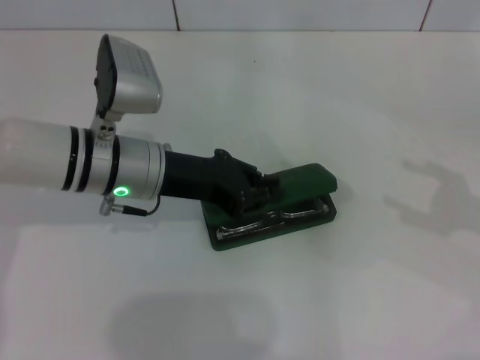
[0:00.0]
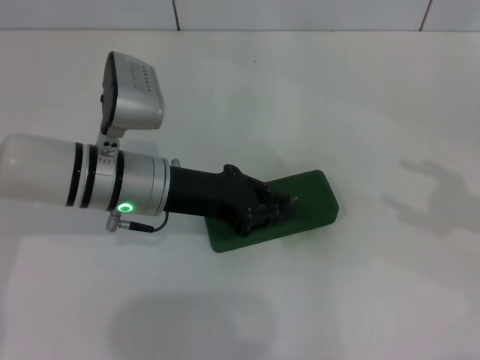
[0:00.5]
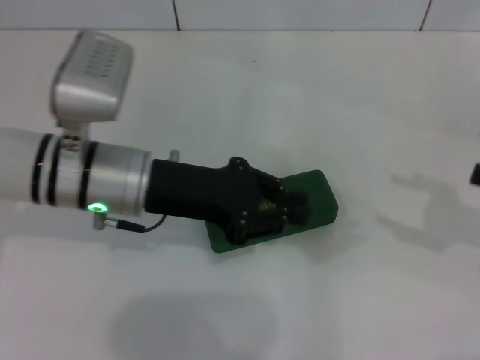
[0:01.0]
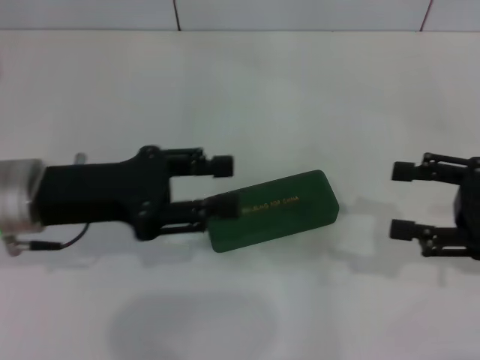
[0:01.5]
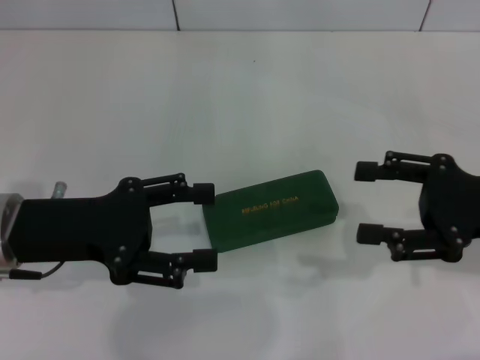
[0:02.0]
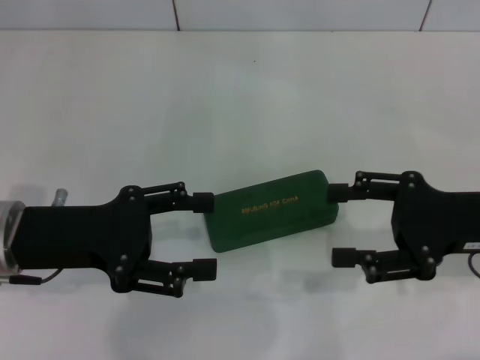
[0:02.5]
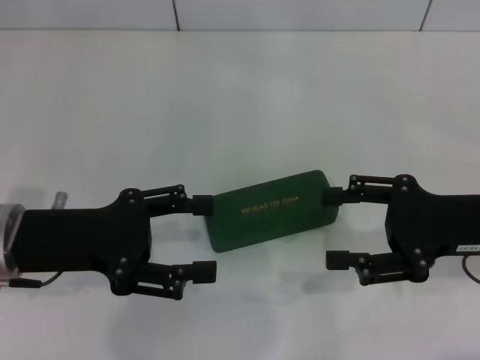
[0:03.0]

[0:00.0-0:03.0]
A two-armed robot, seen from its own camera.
0:00.0 to 0:01.5: The right gripper travels to the left by about 5 cm. The left gripper travels to the left and backward by about 10 cm.
0:01.5 to 0:03.0: The right gripper shifts approximately 5 cm to the left. The left gripper opens.

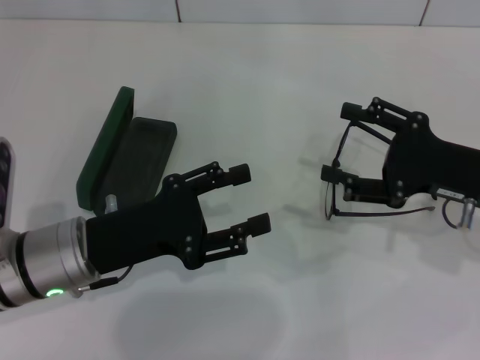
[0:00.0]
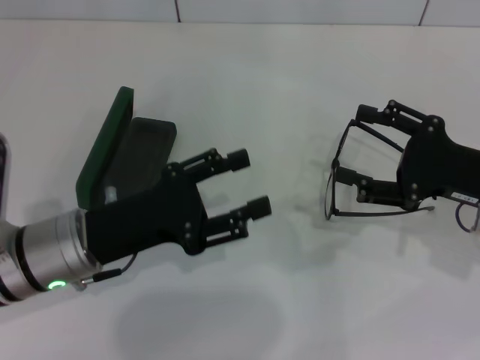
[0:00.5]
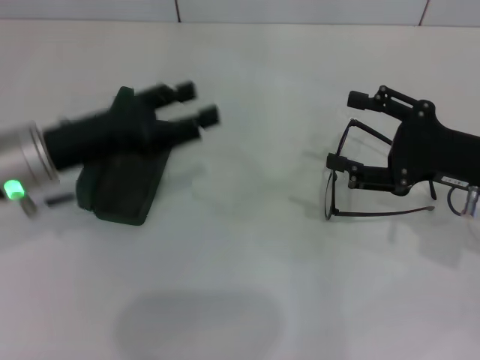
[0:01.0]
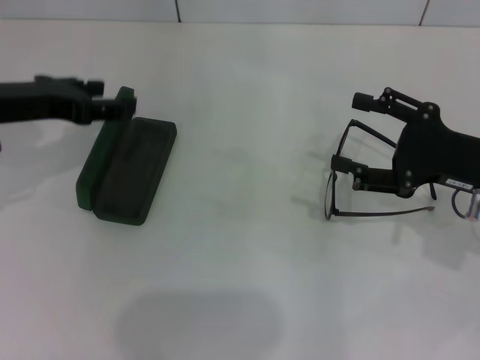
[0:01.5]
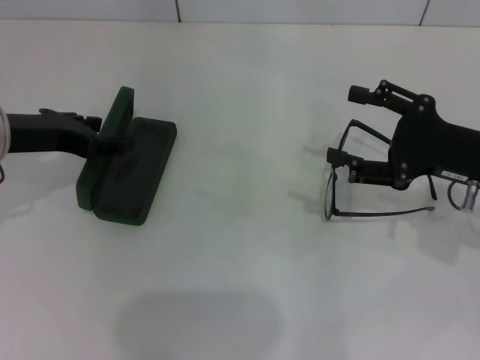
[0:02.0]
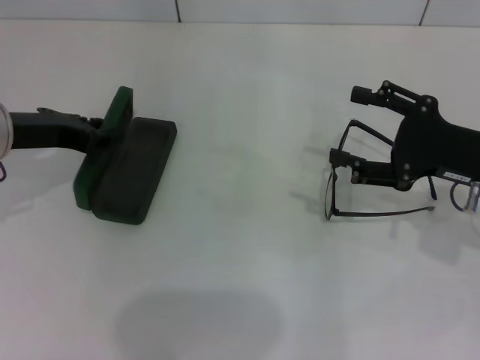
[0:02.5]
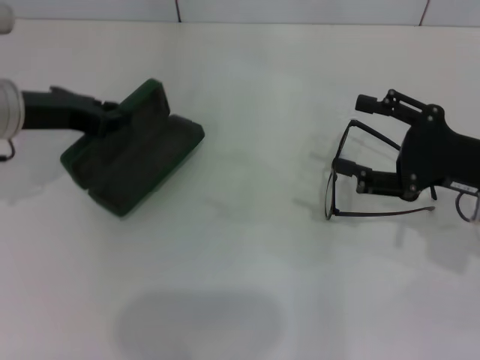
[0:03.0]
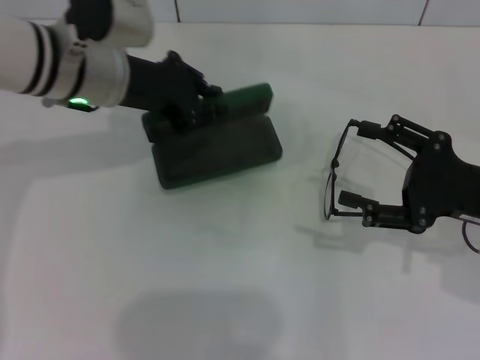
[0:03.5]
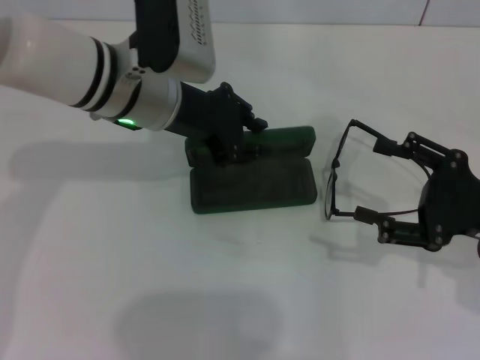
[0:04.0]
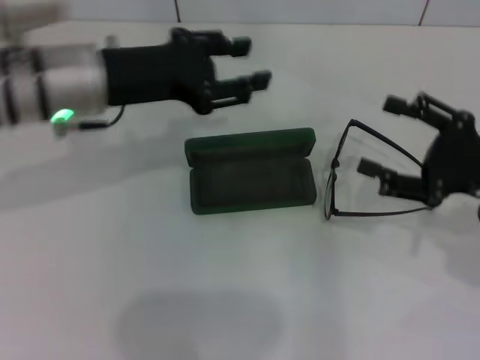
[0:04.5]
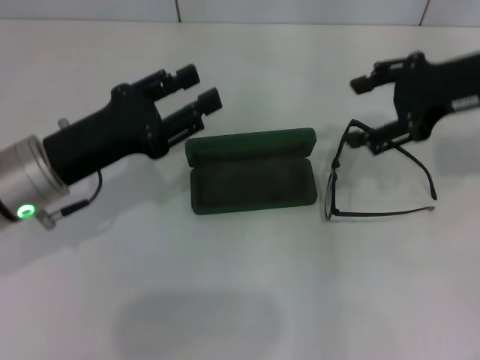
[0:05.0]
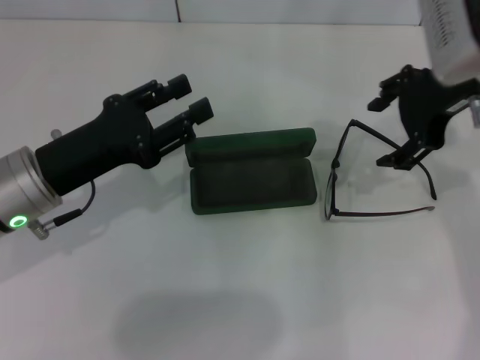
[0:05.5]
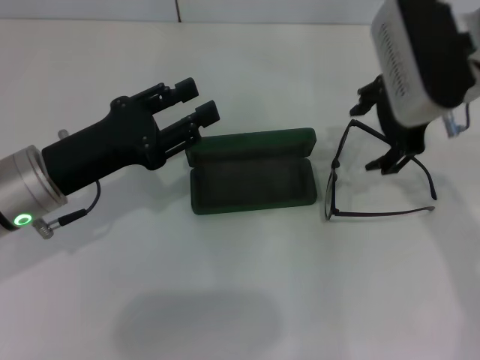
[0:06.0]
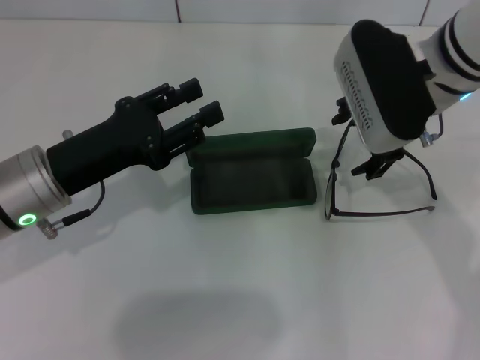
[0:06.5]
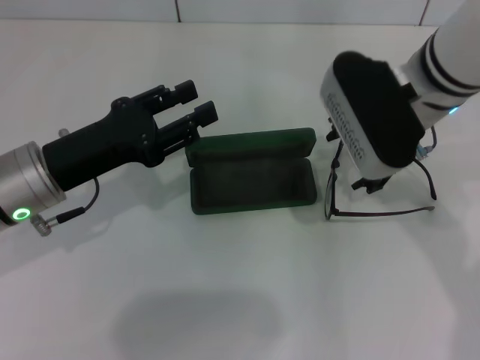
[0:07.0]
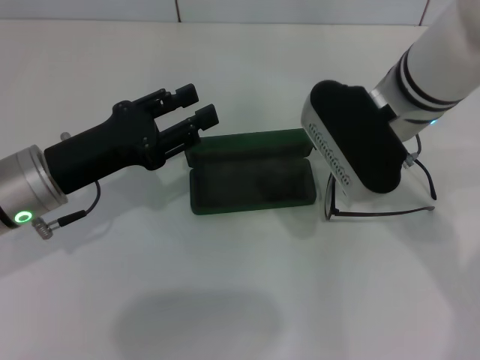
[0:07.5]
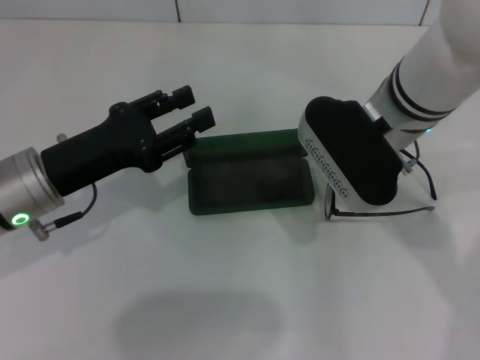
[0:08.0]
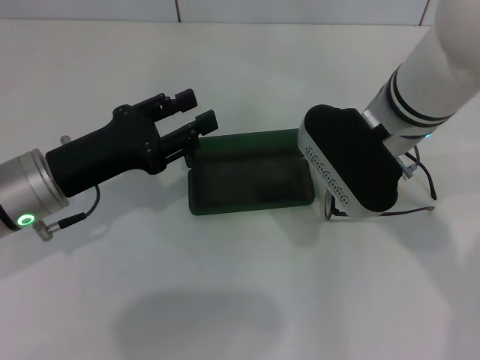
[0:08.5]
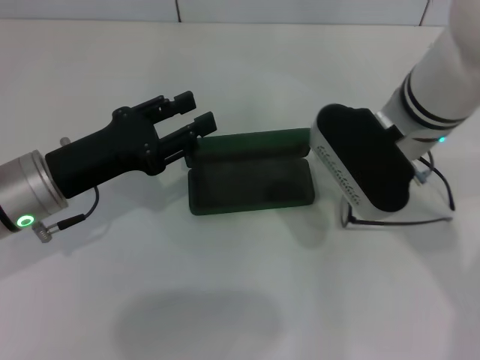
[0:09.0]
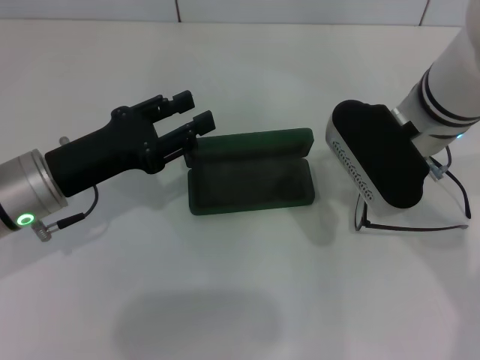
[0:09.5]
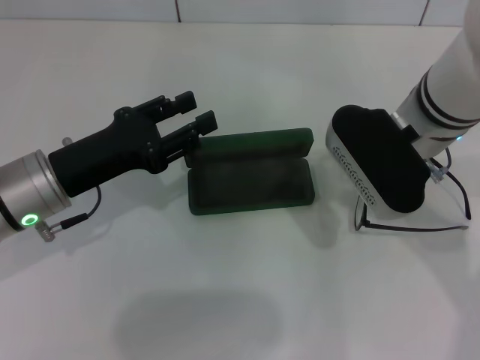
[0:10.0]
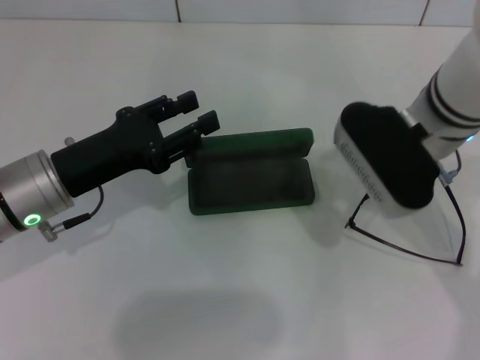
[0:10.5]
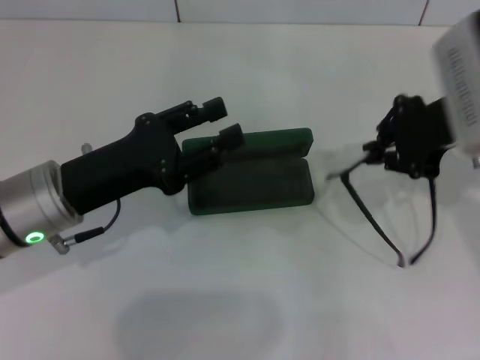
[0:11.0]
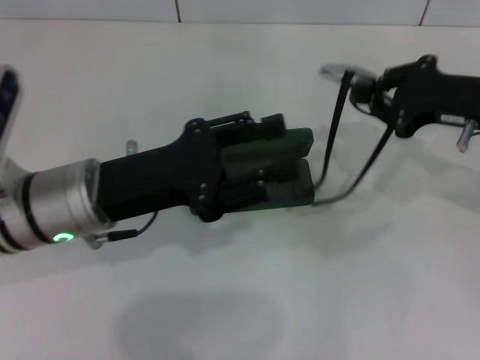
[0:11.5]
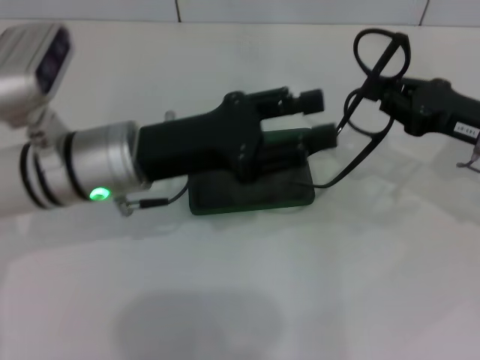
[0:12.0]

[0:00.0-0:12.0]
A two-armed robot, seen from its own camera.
Step, 0:00.0 to 0:02.5: Grab the glasses case with your left hand.
Step, 0:03.0 to 0:04.0: Place the glasses case in the center of the table with your left hand.
Step, 0:04.5 to 0:10.0: Grab the eyeglass frame with your right hand.
0:00.0 to 0:02.0: The left gripper heads forward, to the left and upward, covering about 15 cm.
0:02.0 to 0:04.0: The left gripper is displaced to the right by roughly 15 cm, and closes its fingers. The right gripper moves roughly 5 cm.
0:04.0 to 0:06.0: The right gripper travels upward, to the left and forward by about 20 cm; the left gripper shifts some 15 cm to the left, backward and downward, and opens its fingers.
0:06.0 to 0:08.0: The right gripper moves to the left, some 5 cm.
0:08.0 to 0:10.0: The right gripper closes.
0:10.0 to 0:12.0: The right gripper shifts about 15 cm to the right, while the left gripper is displaced to the right by roughly 10 cm.

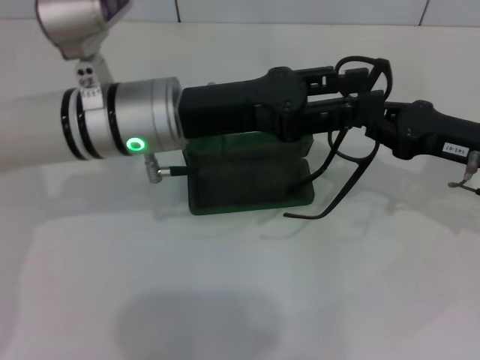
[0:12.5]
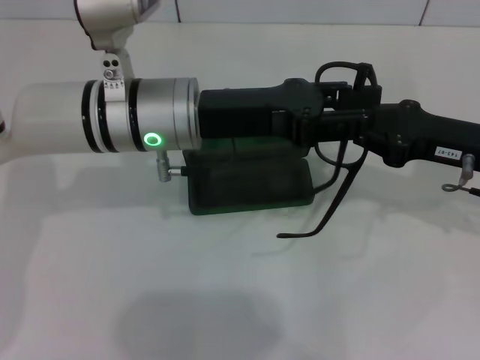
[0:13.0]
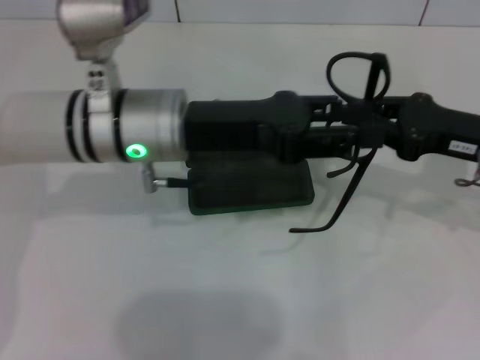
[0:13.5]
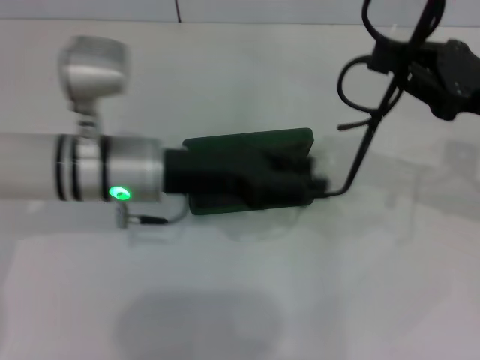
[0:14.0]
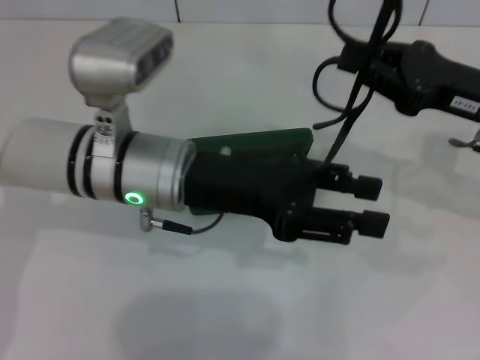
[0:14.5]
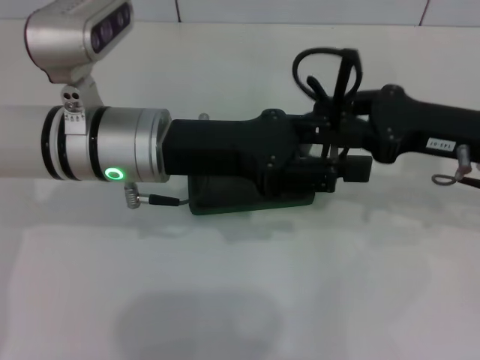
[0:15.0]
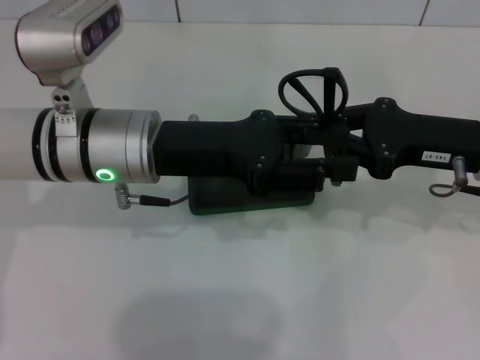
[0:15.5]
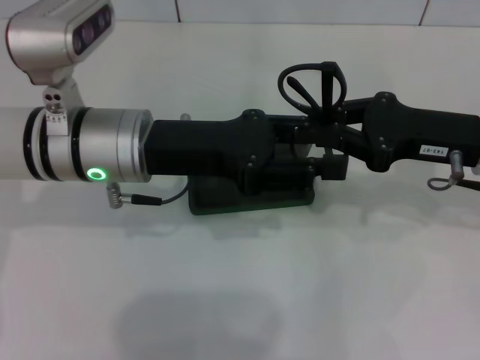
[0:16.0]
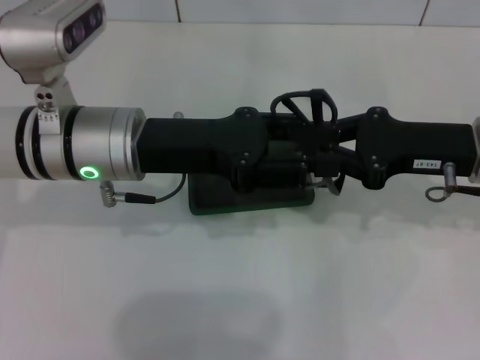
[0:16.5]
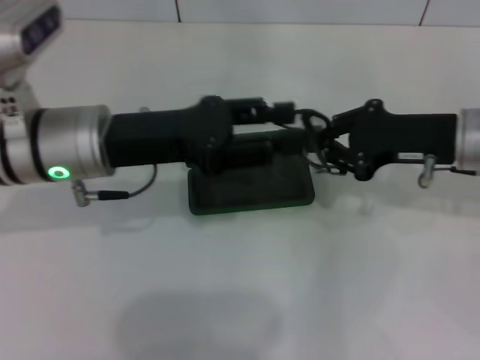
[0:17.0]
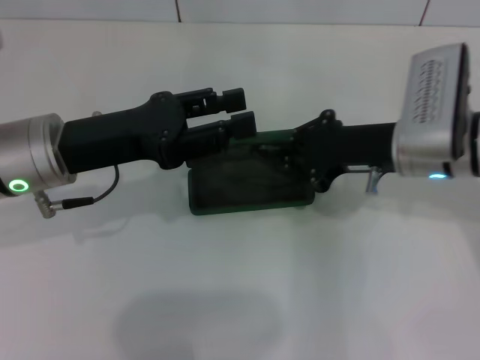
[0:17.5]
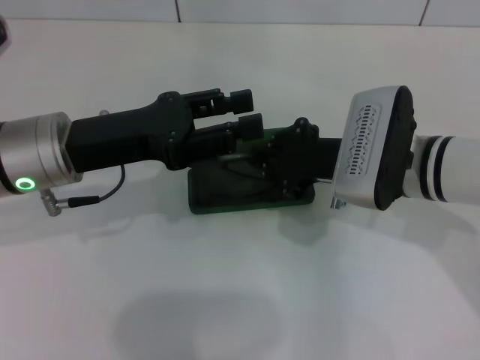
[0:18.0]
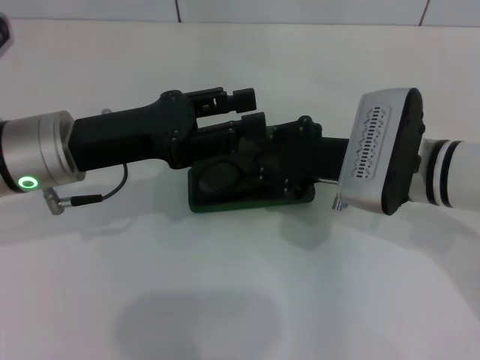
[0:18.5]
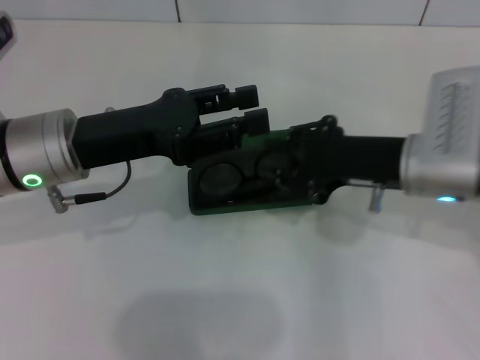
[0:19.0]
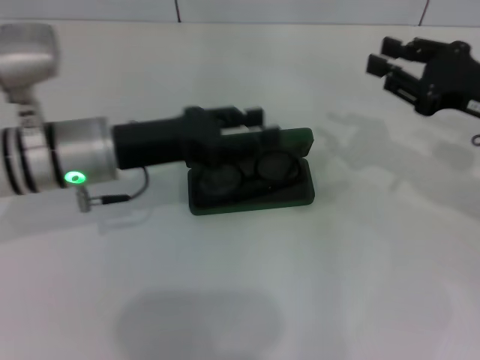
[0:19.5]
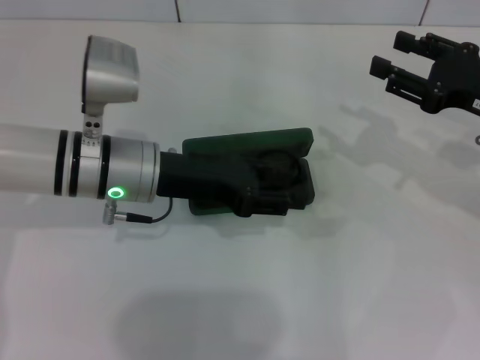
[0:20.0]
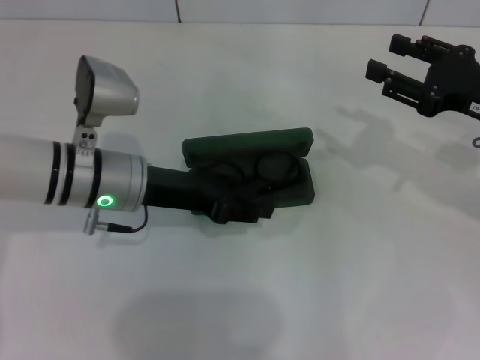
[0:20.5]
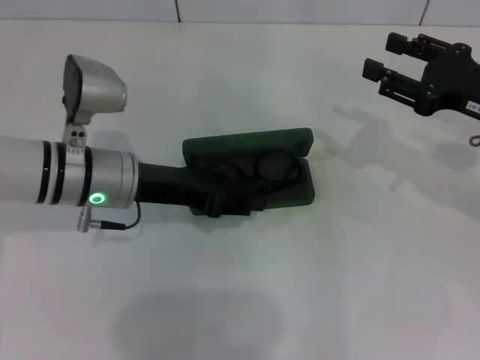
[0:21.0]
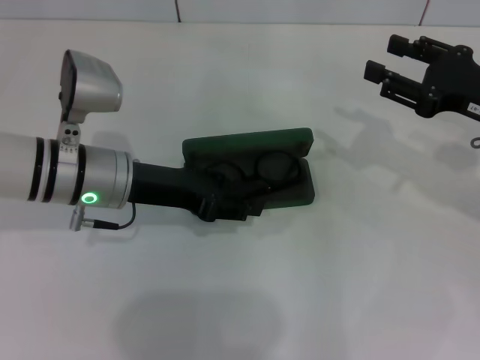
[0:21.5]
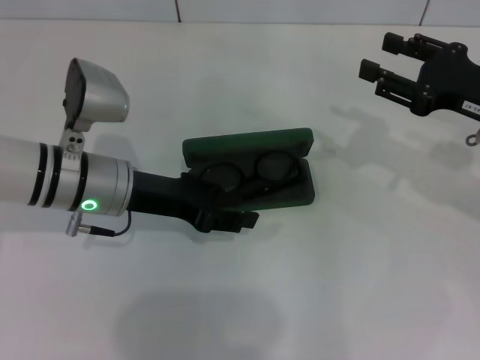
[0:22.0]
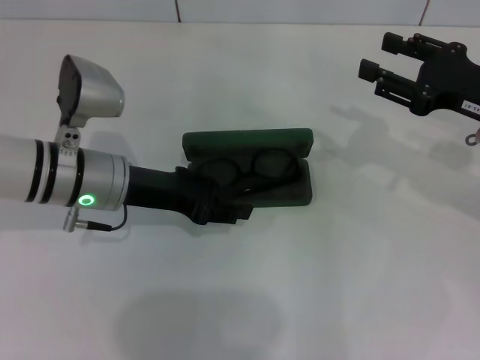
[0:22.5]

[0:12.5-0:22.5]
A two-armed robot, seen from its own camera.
Step, 0:12.5 to 0:15.0: Fold the frame with your left hand.
Step, 0:15.5 to 0:18.0: Put the glasses into the case with your right hand.
0:16.5 to 0:18.5: The left gripper travels to the left by some 5 cm, while the right gripper goes about 10 cm to the left.
0:18.5 to 0:20.5: The left gripper goes roughly 5 cm downward. The right gripper heads to the right, covering about 15 cm, and opens.
0:20.5 to 0:22.5: There are only small adjustments of the grippers.
